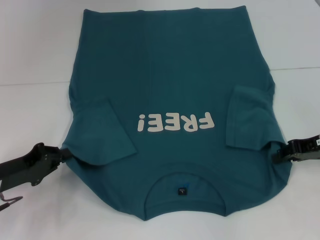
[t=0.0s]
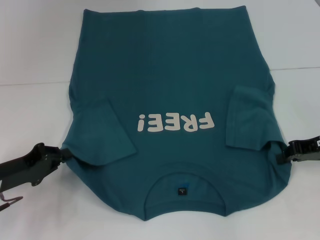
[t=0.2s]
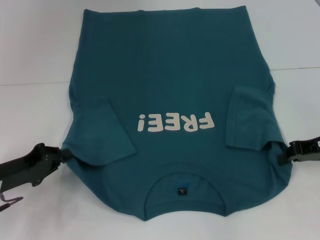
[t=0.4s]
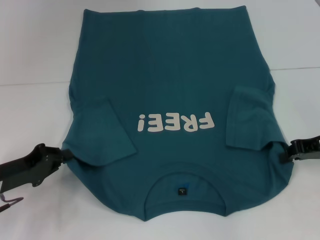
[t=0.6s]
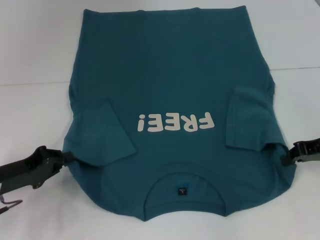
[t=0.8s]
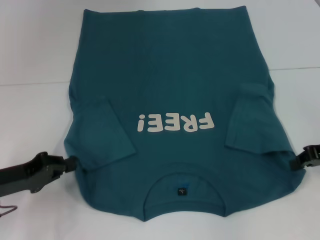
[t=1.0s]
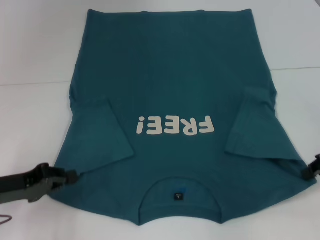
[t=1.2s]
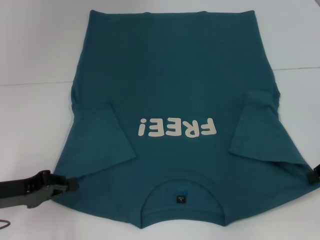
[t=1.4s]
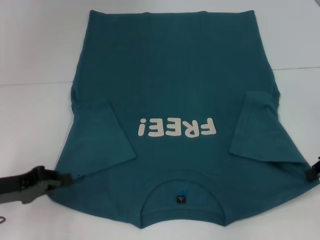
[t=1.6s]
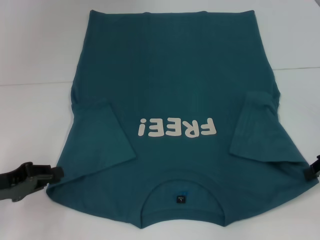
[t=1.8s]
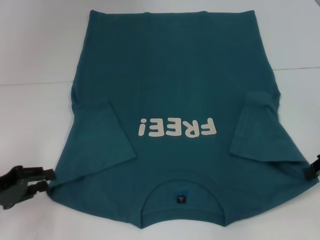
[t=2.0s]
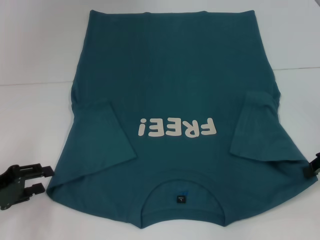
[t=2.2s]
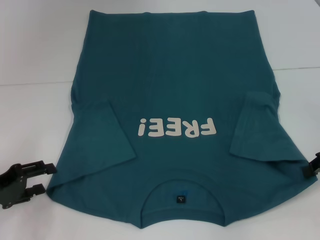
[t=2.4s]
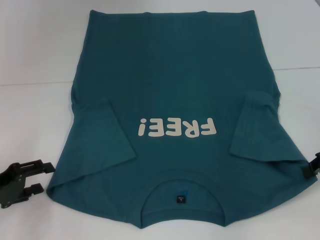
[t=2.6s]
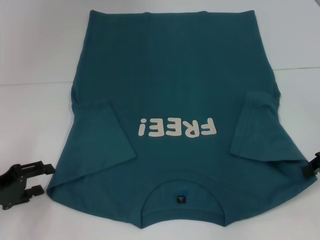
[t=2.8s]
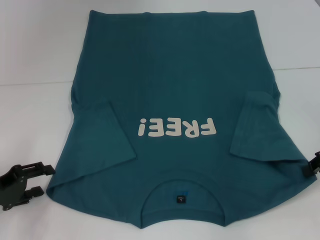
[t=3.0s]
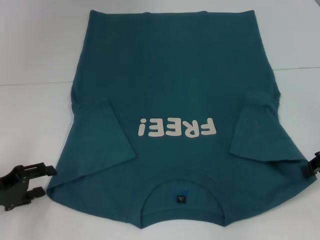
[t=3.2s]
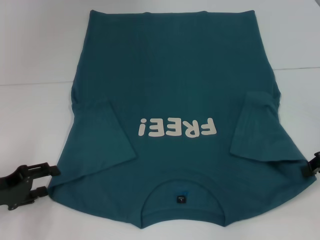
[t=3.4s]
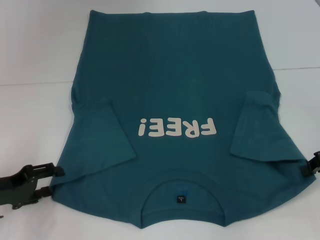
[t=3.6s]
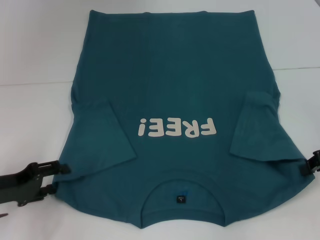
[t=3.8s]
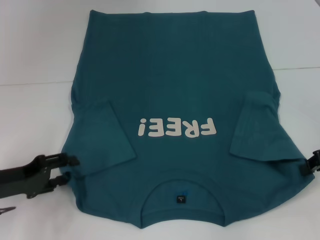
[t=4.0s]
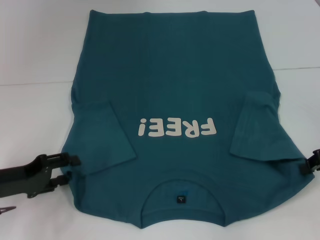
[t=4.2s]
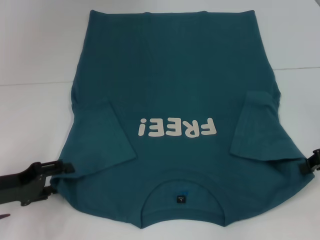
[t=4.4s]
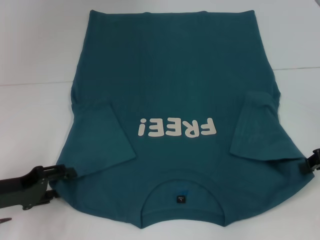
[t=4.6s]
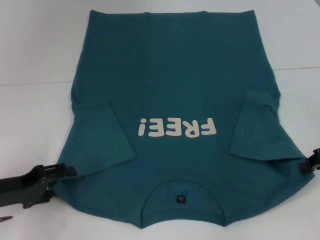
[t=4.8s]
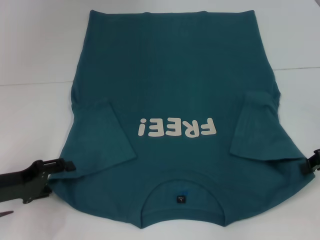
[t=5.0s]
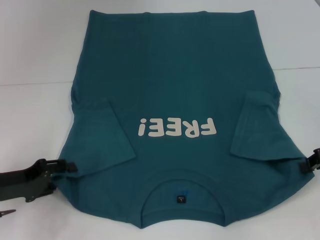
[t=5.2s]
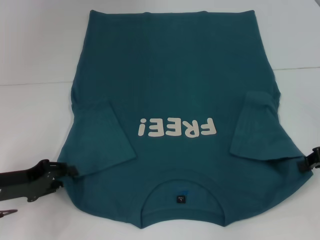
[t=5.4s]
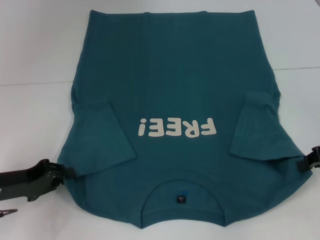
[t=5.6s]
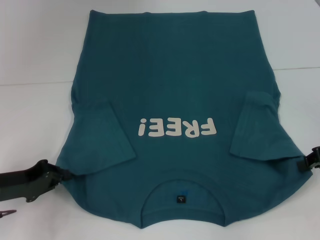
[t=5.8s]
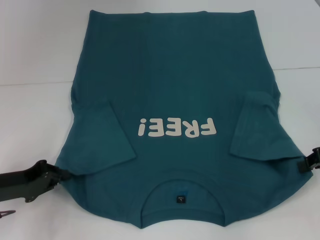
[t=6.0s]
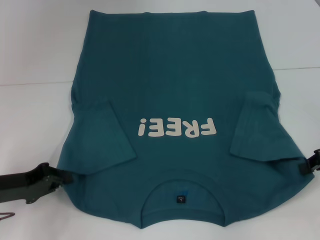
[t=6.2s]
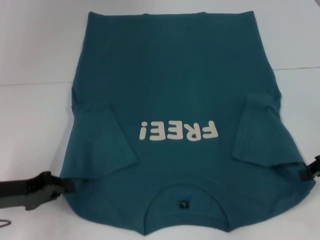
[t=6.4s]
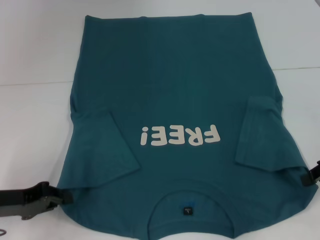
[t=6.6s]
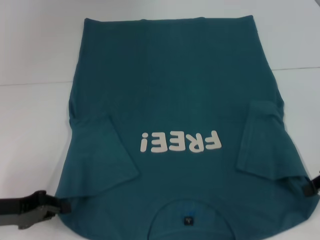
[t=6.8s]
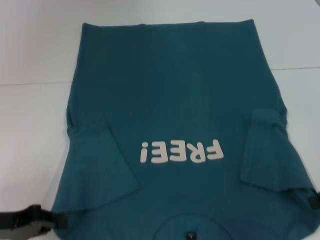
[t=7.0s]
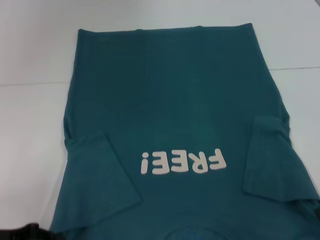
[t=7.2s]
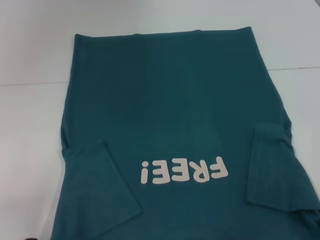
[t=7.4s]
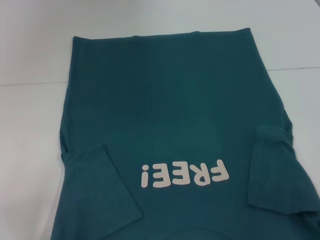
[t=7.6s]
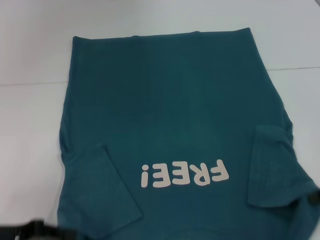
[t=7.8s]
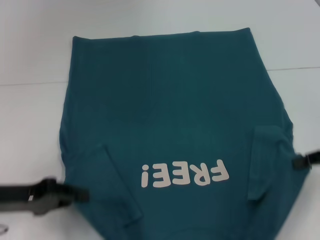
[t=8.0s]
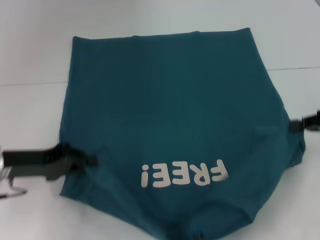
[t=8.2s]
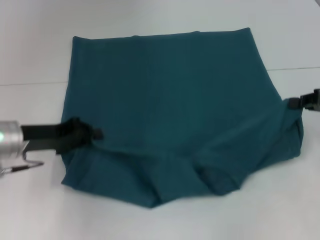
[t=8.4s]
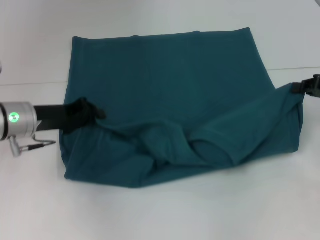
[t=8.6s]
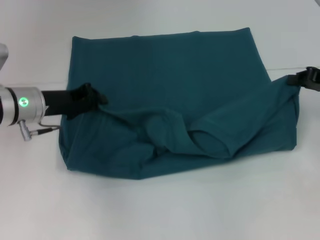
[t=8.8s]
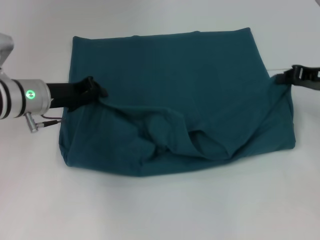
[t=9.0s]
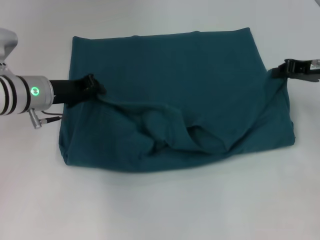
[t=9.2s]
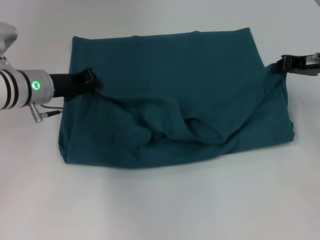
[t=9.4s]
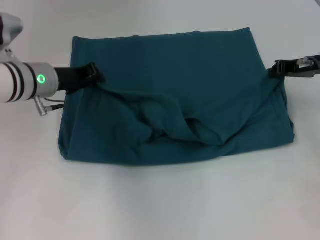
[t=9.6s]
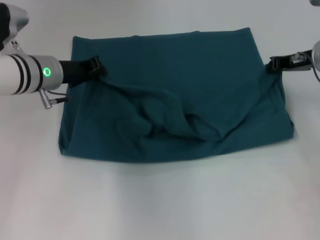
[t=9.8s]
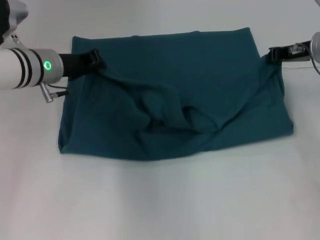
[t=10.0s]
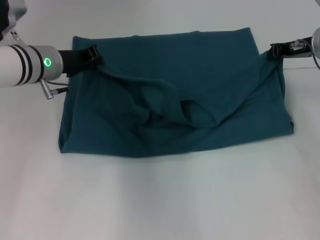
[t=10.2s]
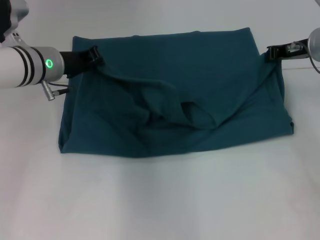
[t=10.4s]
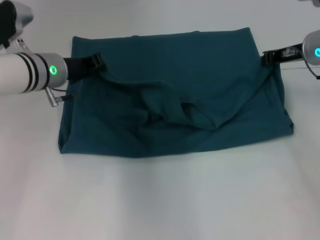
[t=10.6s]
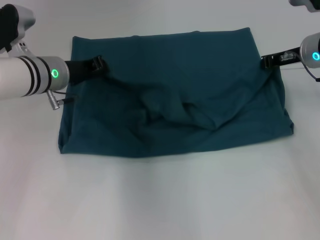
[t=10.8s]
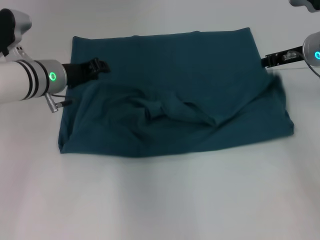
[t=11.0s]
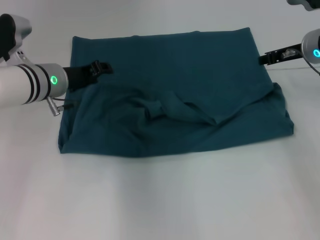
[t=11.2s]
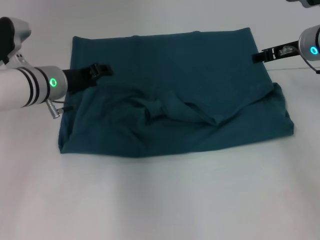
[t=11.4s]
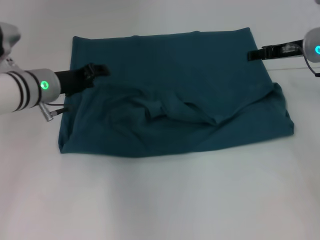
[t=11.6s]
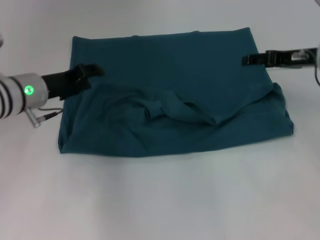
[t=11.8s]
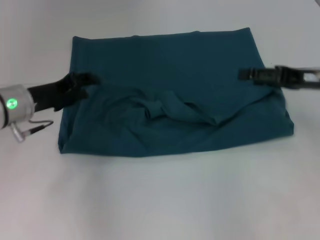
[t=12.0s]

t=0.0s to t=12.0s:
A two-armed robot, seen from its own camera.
t=0.0s to t=1.6s: The right gripper closes up.
t=1.6s to t=3.0s: The left gripper opens its fingers.
t=3.0s to t=4.4s: The grippers move only a little.
t=4.4s to t=6.0s: The left gripper closes its fingers.
t=6.0s to t=7.6s: Both grippers move backward, approximately 5 cm.
t=7.6s to t=9.0s: The left gripper is displaced forward and to the right by some 20 cm. Meanwhile the right gripper is displaced forward by some 15 cm.
t=9.0s to t=10.4s: The left gripper changes place by approximately 5 cm; the right gripper goes approximately 10 cm forward and to the left.
t=10.4s to t=12.0s: Both grippers travel together backward, roughly 10 cm. The left gripper opens its fingers; the right gripper opens its fingers.

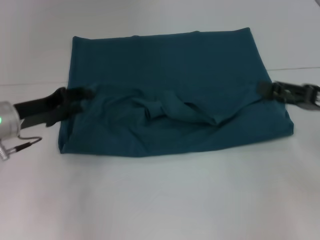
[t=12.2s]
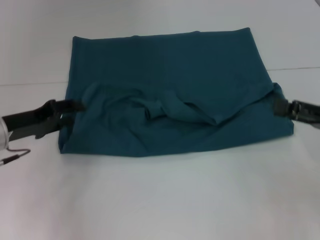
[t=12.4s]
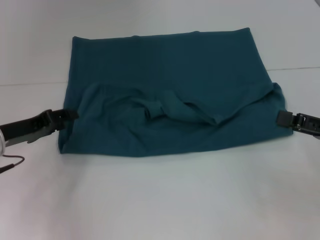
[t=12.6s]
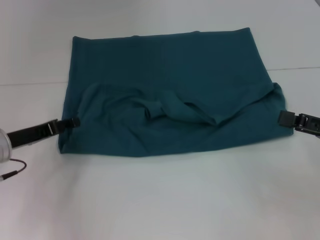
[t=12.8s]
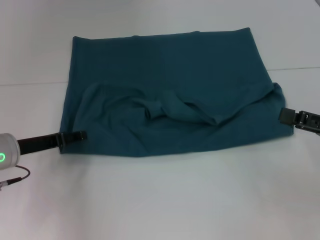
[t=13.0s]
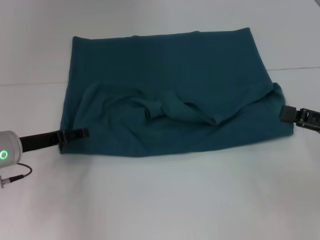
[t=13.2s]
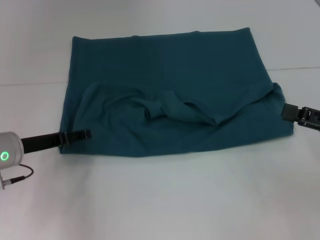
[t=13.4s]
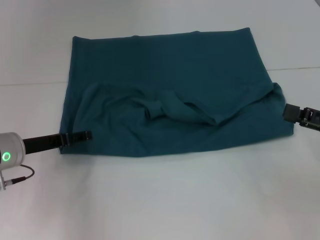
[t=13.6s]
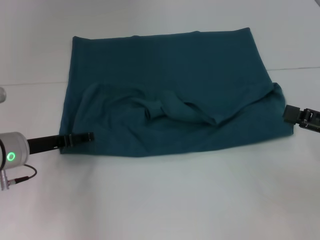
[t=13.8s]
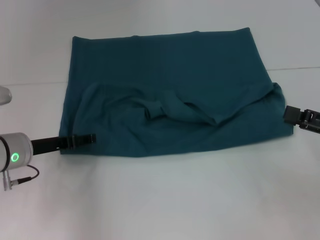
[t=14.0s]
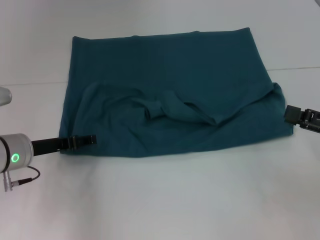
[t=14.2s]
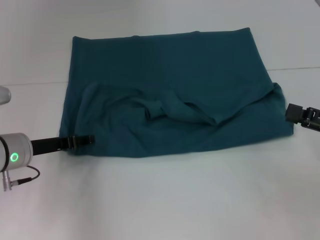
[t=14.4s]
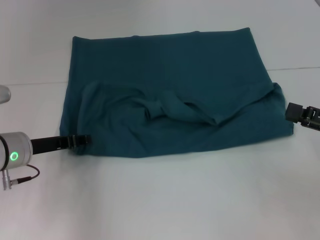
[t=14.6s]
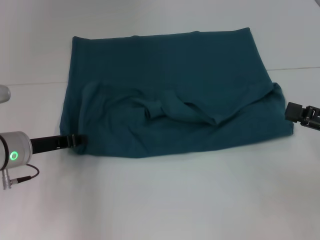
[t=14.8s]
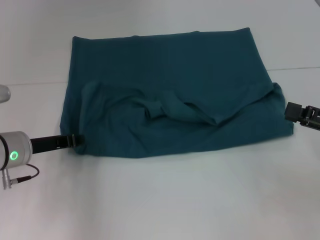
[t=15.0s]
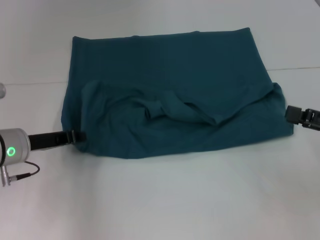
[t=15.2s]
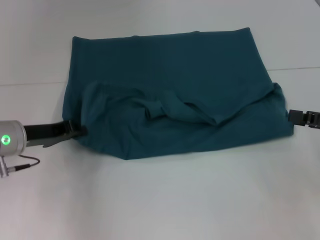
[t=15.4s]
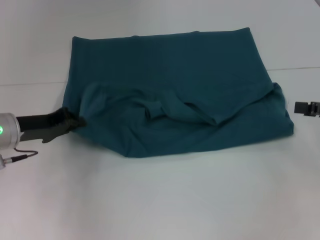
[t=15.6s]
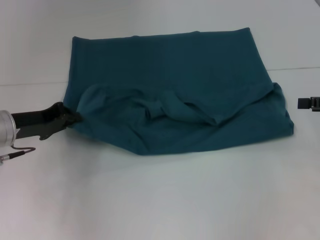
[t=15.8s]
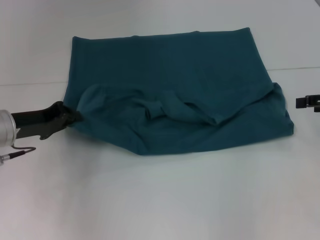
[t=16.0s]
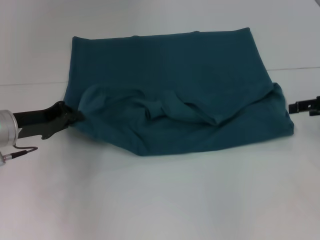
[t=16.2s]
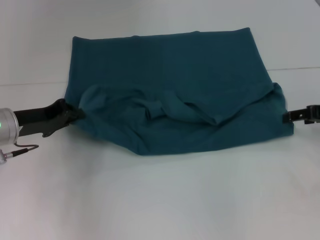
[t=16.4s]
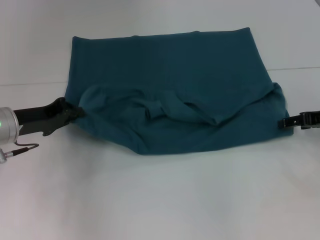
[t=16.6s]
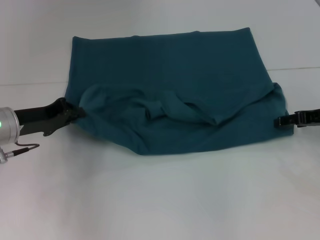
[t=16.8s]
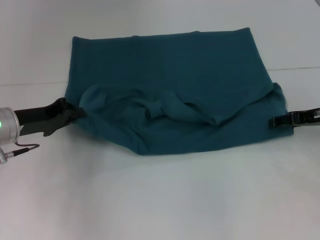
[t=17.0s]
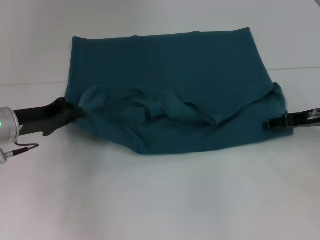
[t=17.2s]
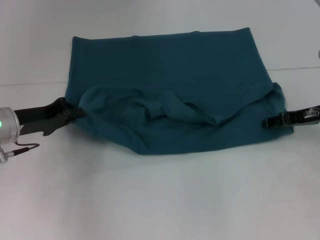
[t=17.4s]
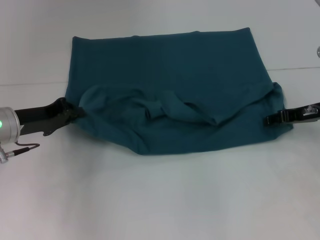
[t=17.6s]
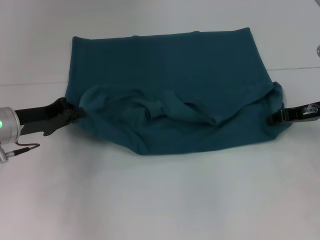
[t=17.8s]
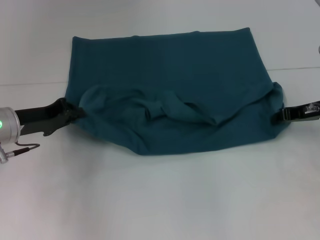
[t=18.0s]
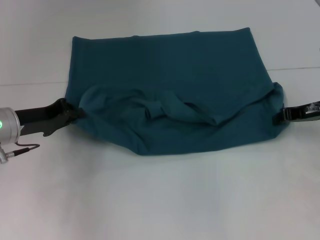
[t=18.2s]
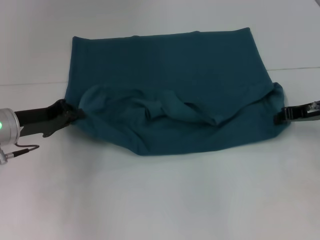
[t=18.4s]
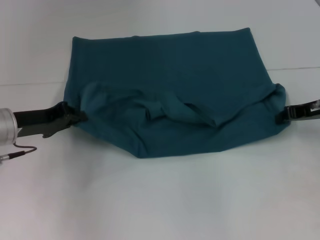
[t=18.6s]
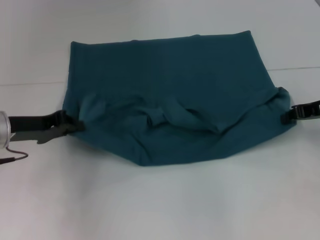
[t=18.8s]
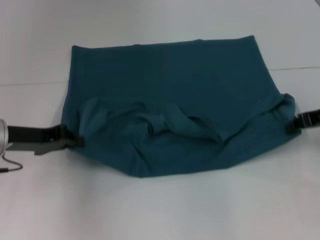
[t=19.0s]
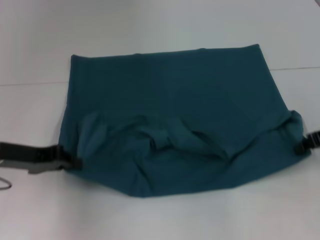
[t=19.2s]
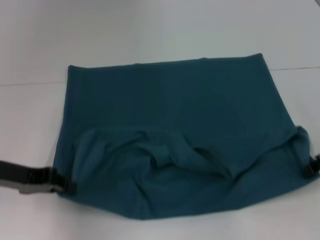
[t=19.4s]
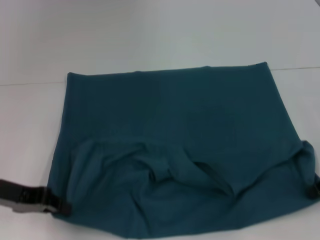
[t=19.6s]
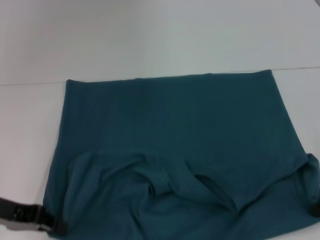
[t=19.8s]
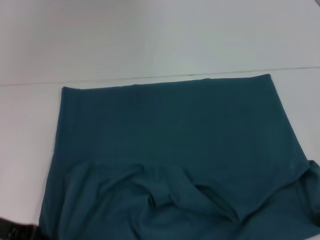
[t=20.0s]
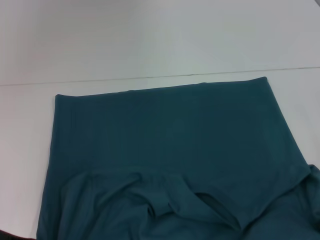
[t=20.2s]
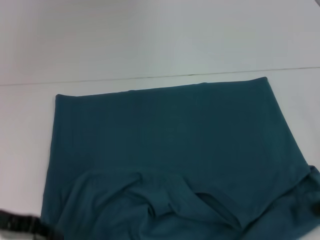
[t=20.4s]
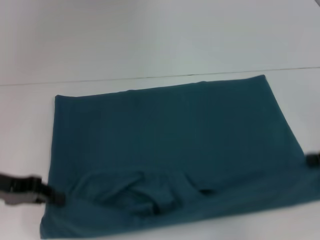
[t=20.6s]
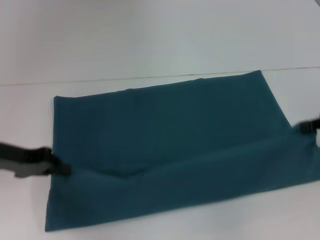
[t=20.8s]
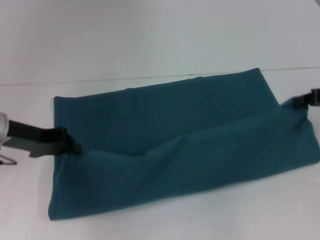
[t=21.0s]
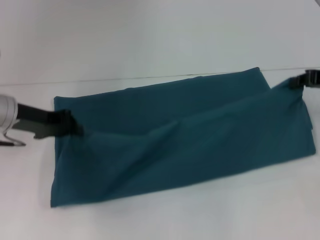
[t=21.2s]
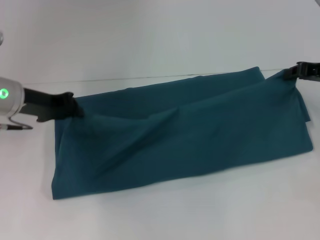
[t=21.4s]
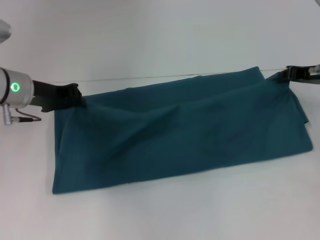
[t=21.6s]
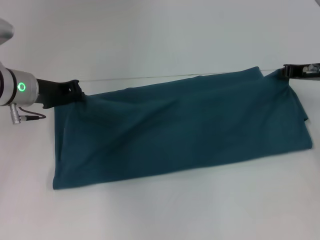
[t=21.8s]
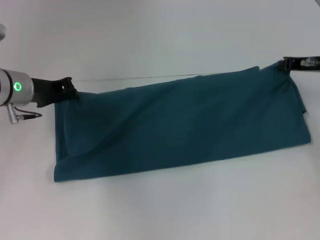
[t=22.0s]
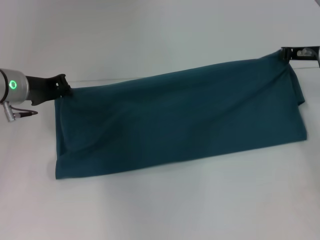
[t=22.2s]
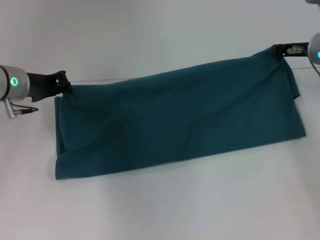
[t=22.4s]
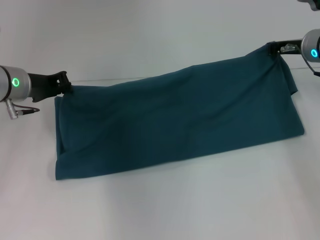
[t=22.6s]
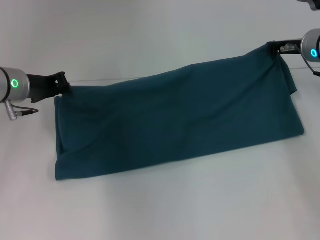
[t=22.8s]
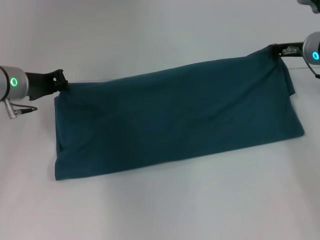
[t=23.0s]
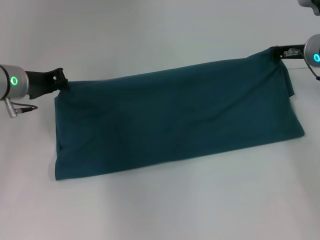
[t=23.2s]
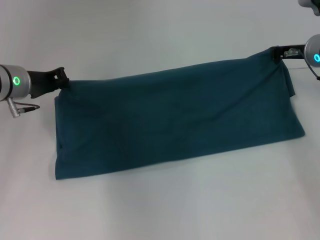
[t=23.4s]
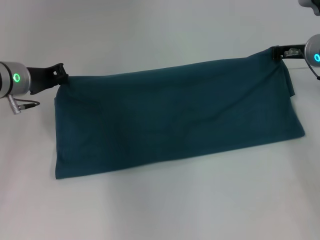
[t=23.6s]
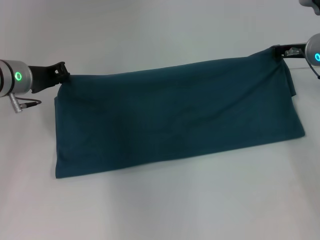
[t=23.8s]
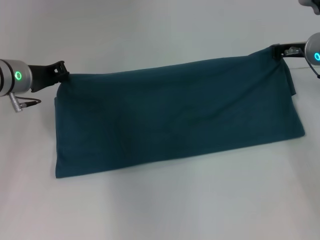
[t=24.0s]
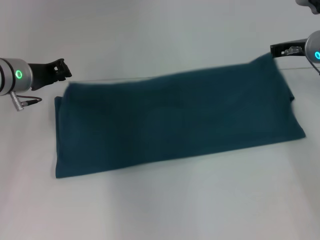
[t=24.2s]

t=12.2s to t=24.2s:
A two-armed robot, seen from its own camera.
Step, t=12.6s to t=20.0s: Pull the clothes with your left hand.
Step, t=12.6s to t=20.0s: Pull the clothes with your right hand.
t=12.2s to t=13.8s: The right gripper moves approximately 5 cm.
t=13.8s to t=15.2s: The left gripper closes its fingers.
t=15.2s to t=16.6s: The right gripper travels forward by about 10 cm.
t=16.6s to t=18.2s: The right gripper closes up.
t=18.2s to t=19.8s: Both grippers move backward, approximately 10 cm.
t=19.8s to t=21.2s: Both grippers travel together forward, roughly 10 cm.
t=21.2s to t=22.6s: The right gripper heads forward and to the left, covering approximately 10 cm.
t=22.6s to t=24.2s: The grippers move only a little.
